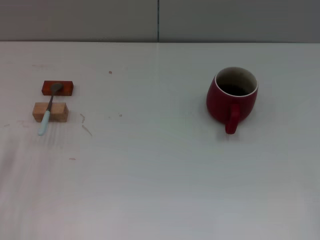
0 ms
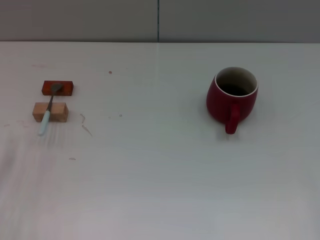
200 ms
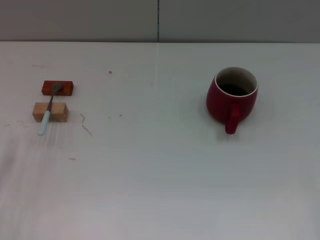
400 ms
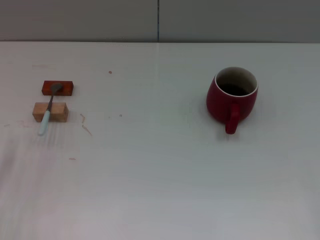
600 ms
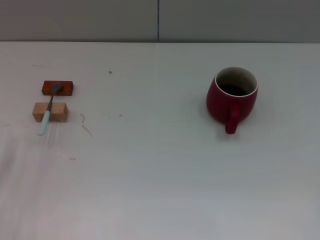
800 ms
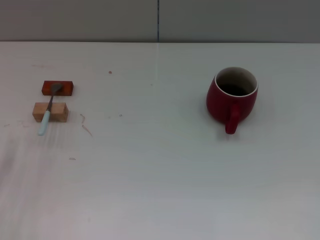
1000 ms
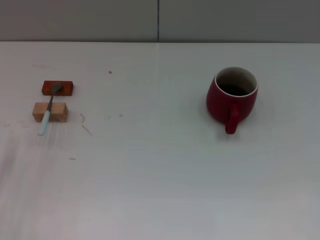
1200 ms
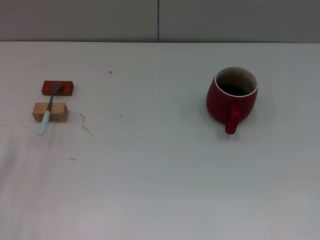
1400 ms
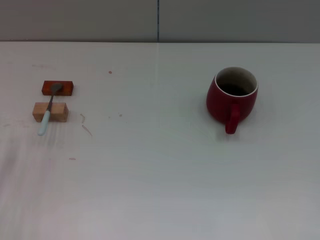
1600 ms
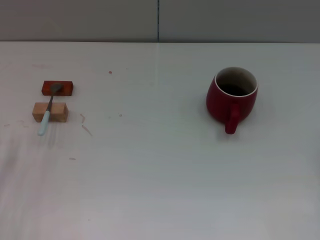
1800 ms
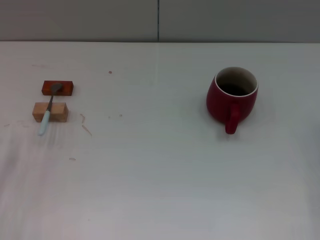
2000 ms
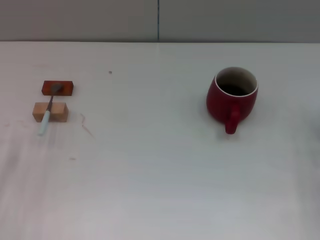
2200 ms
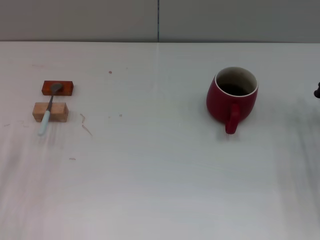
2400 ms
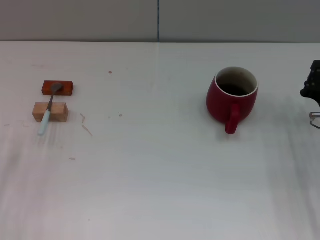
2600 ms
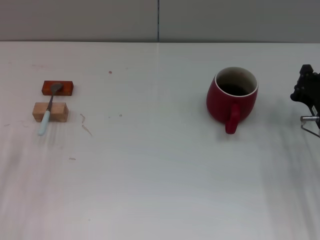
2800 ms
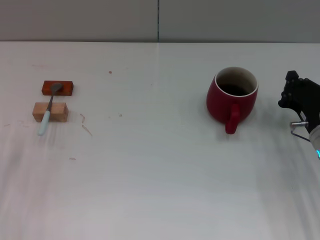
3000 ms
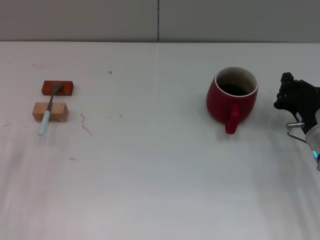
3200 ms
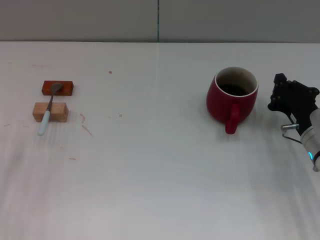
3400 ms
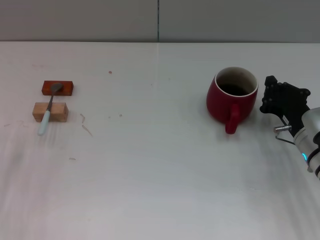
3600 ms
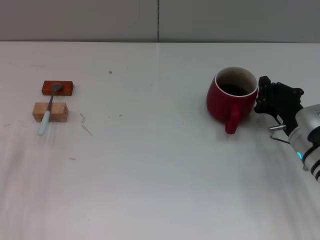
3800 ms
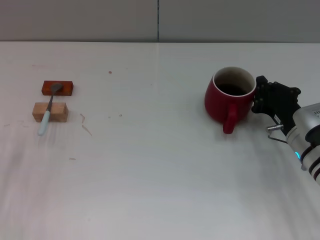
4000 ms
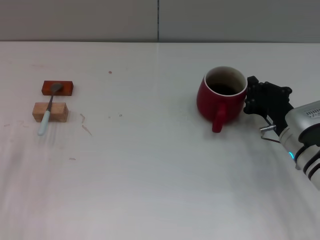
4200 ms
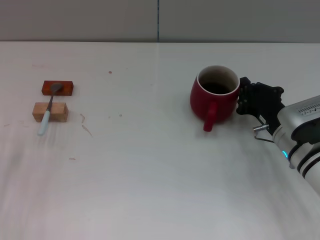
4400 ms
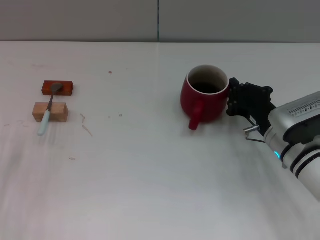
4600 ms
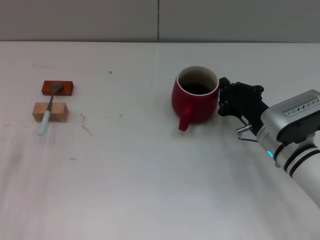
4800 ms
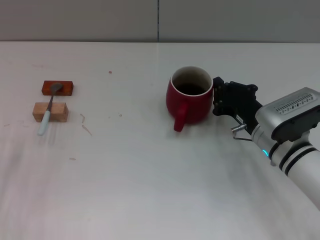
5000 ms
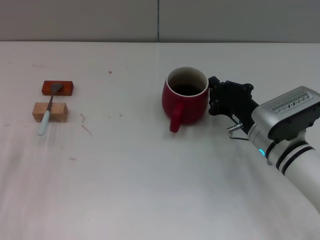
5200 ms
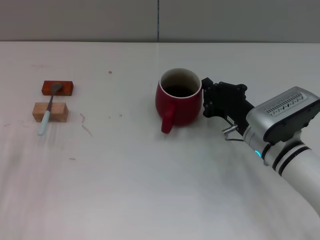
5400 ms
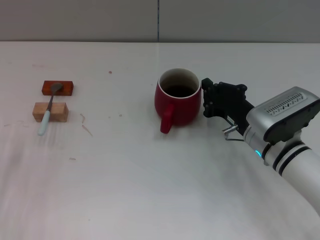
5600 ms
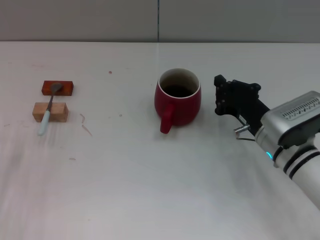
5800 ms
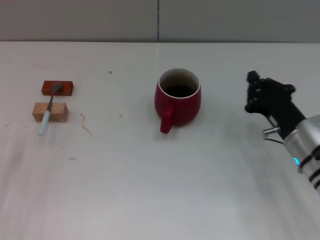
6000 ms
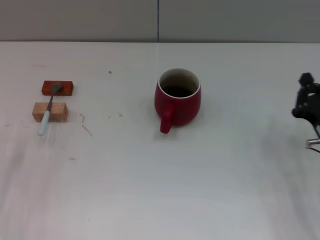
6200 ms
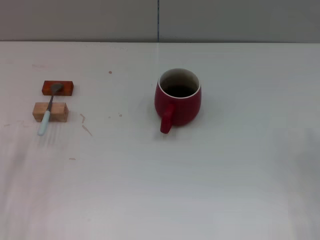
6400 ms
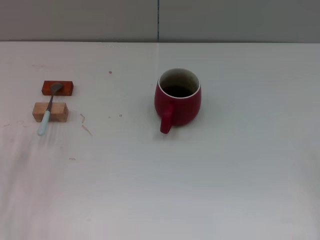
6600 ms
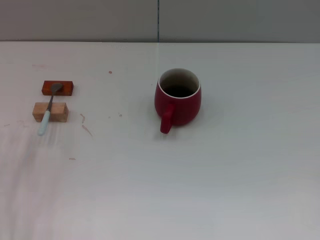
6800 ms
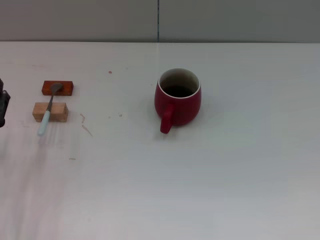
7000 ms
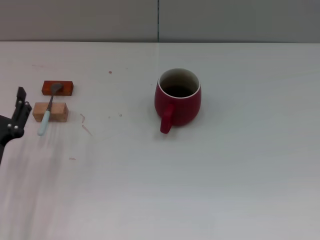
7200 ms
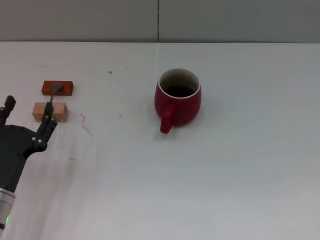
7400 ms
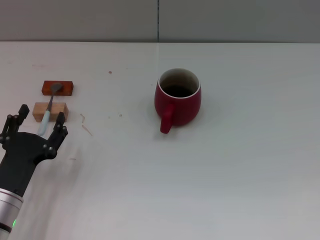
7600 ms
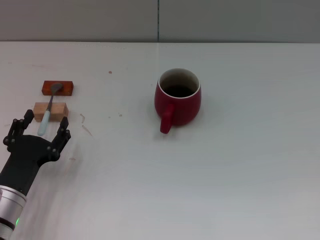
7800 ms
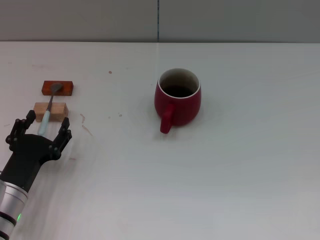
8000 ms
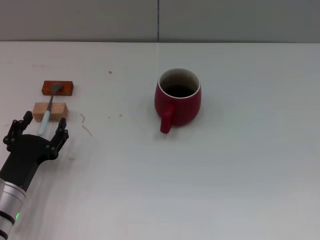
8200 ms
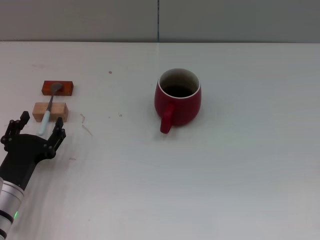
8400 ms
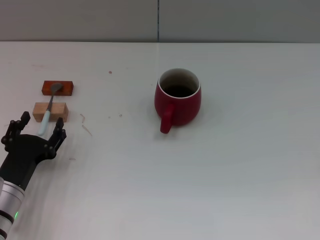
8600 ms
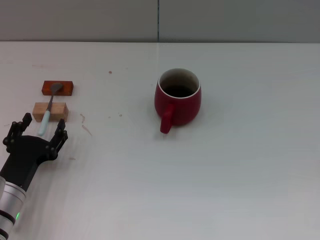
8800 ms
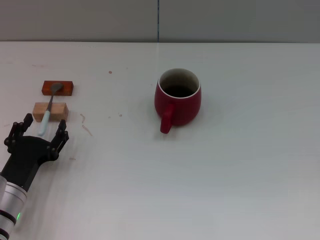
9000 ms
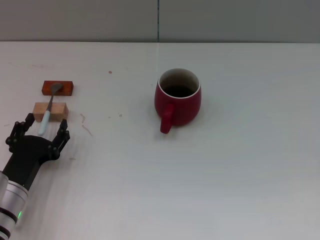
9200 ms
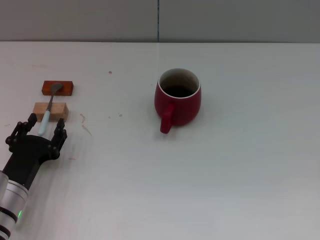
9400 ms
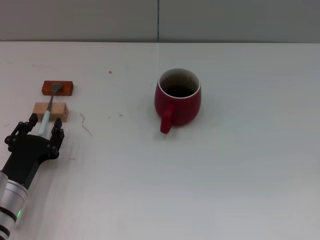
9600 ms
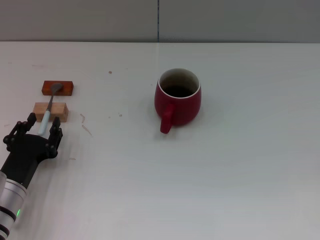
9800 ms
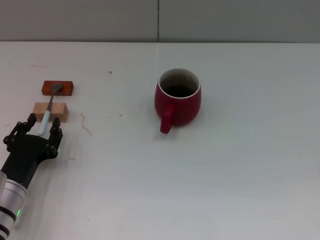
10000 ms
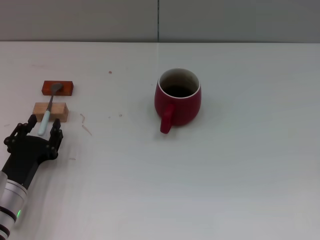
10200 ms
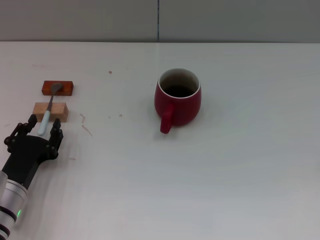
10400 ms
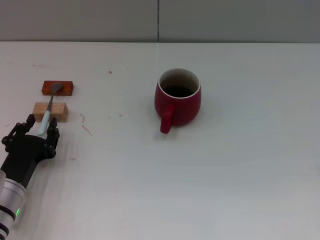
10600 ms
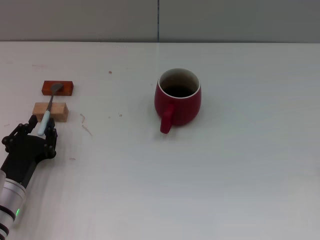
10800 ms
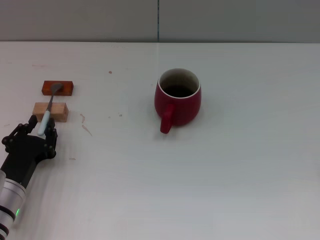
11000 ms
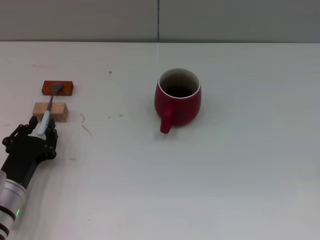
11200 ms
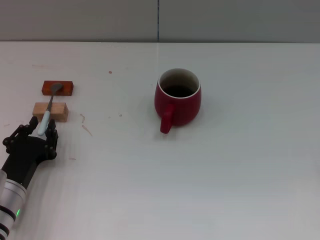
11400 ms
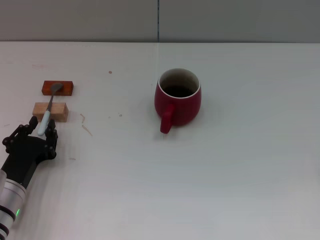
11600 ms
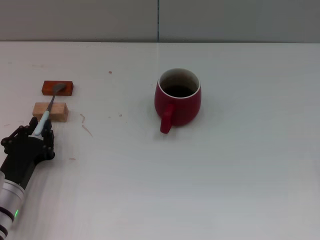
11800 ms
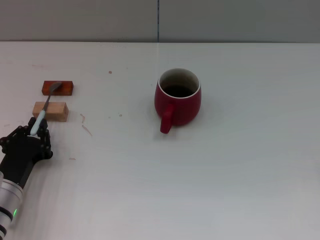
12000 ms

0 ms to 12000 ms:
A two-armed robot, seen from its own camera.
Task of the whole recording: Move the red cup to the center, lift the blue spoon, stir it three times in the cup, and put the spoon into the cup.
Step, 0 ms to 5800 ms: Move the cup with coffee to the center of view with the right gripper.
1600 ms to 3000 ms: The right gripper travels forward and to the left by some 15 cm.
3000 ms to 4400 ms: The grippers stay close to where they were, moving slightly.
4400 ms to 6000 ms: The grippers make only small movements.
6000 ms to 7600 ms: The left gripper moves approximately 5 cm. The right gripper is displaced to the right and backward by about 15 cm, and opens its fingers.
7600 ms to 9000 ms: The grippers make only small movements.
9000 ms to 10400 ms: The left gripper closes its fingers.
10400 ms to 12000 ms: The left gripper closes up.

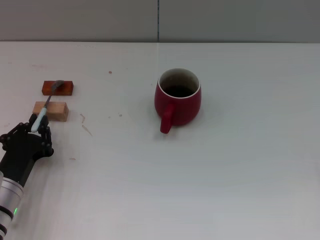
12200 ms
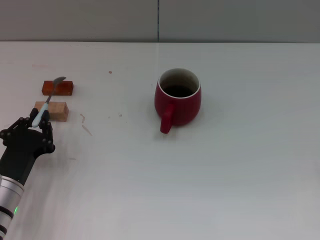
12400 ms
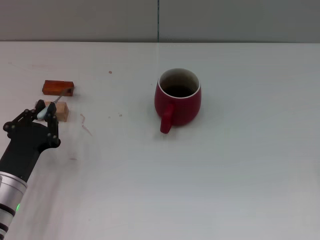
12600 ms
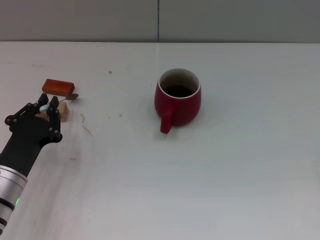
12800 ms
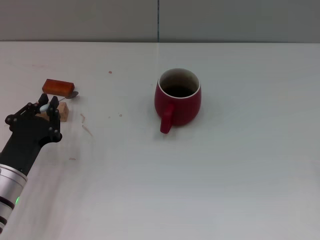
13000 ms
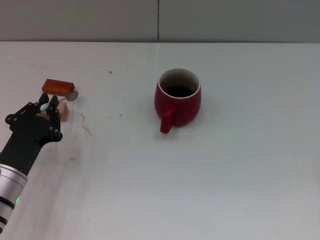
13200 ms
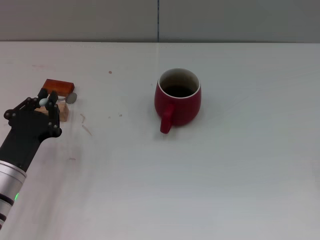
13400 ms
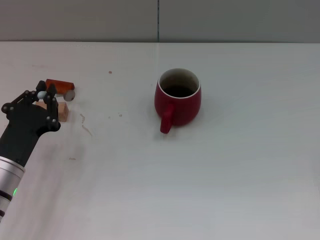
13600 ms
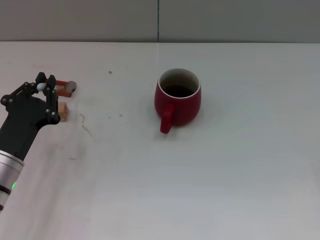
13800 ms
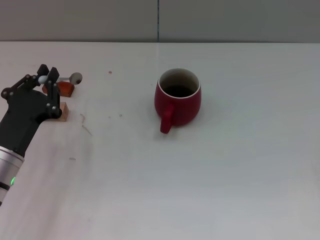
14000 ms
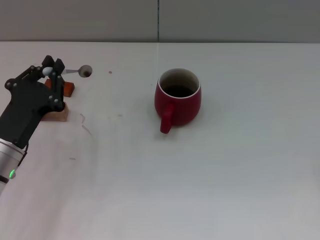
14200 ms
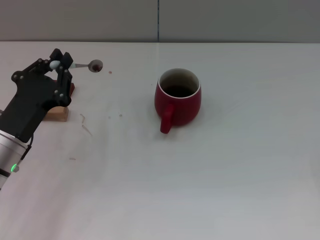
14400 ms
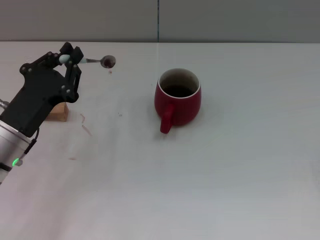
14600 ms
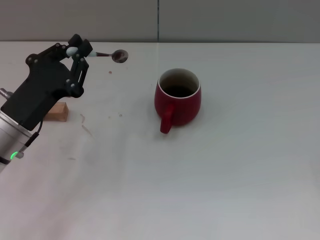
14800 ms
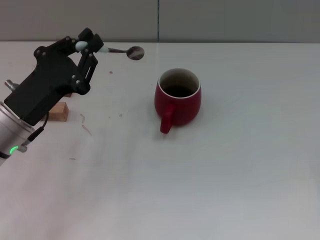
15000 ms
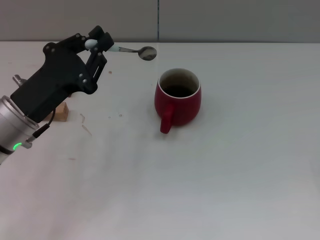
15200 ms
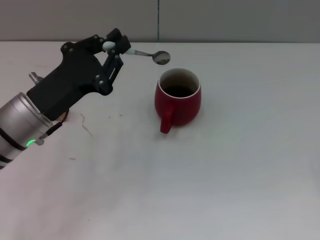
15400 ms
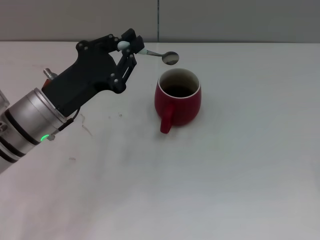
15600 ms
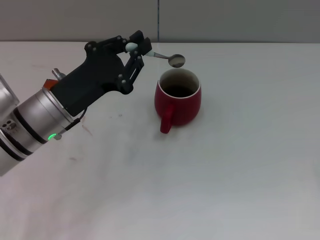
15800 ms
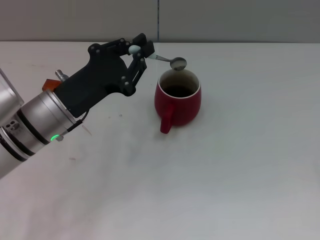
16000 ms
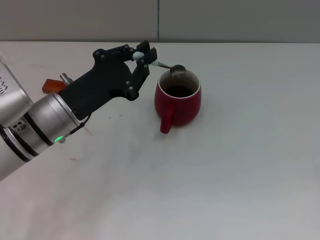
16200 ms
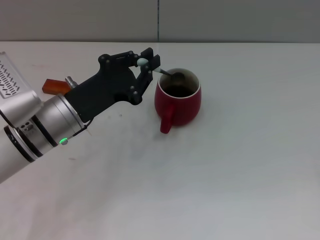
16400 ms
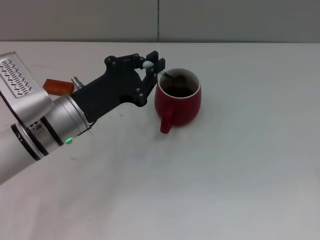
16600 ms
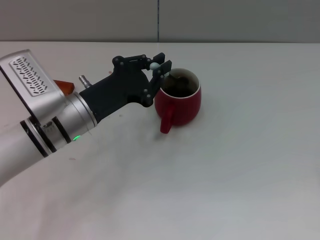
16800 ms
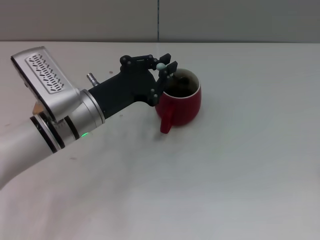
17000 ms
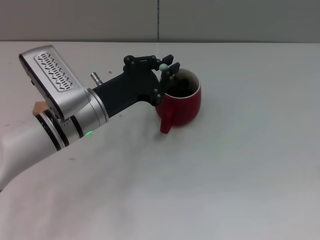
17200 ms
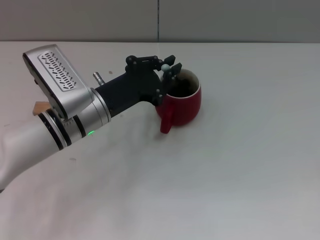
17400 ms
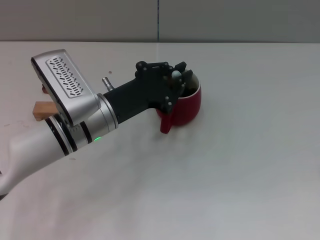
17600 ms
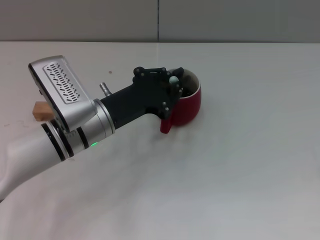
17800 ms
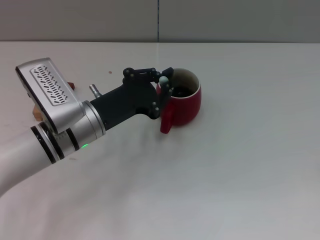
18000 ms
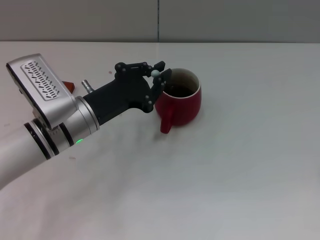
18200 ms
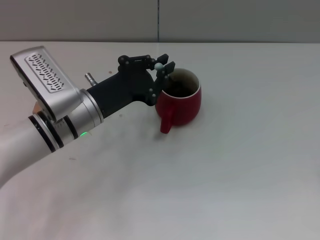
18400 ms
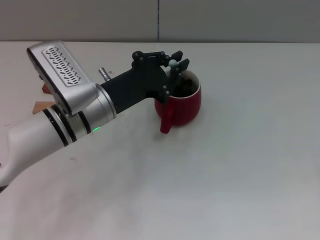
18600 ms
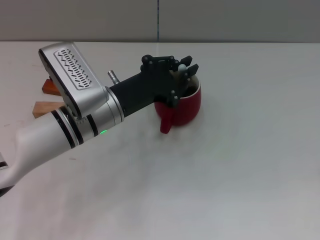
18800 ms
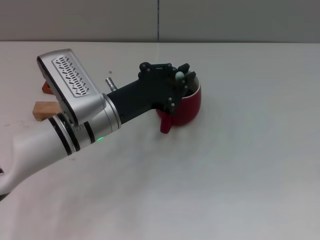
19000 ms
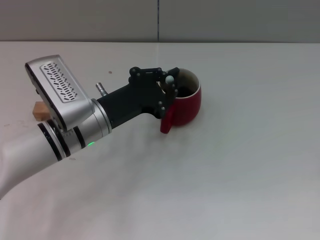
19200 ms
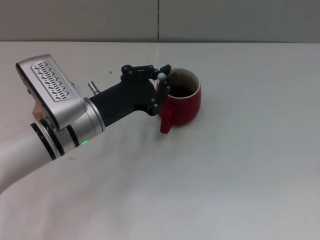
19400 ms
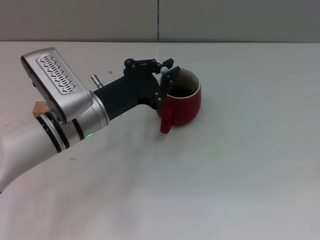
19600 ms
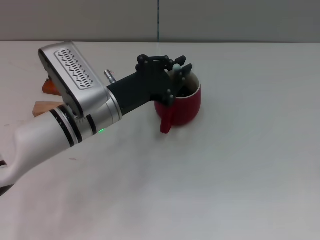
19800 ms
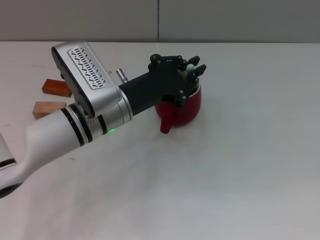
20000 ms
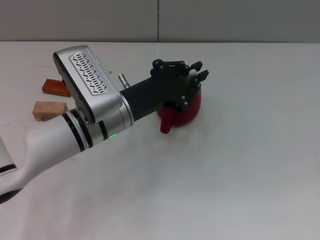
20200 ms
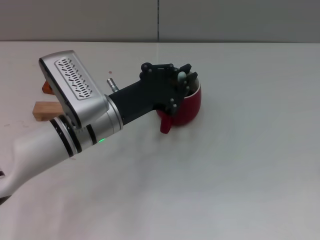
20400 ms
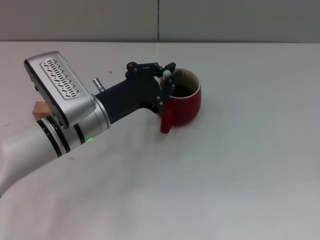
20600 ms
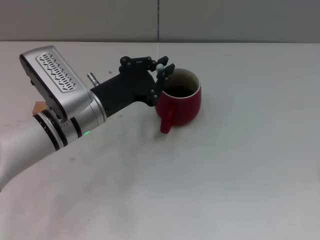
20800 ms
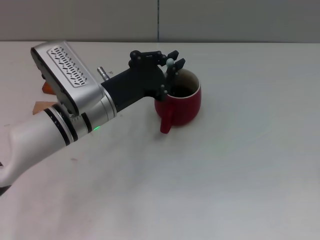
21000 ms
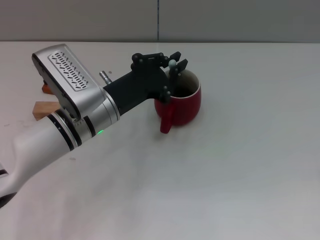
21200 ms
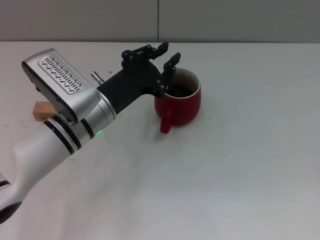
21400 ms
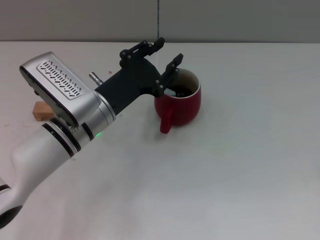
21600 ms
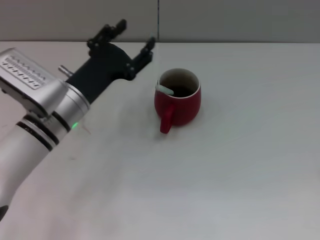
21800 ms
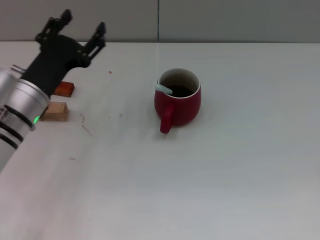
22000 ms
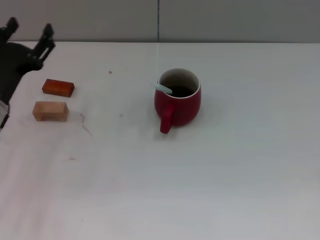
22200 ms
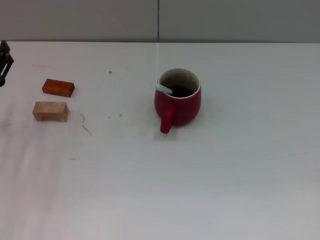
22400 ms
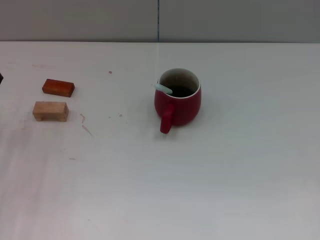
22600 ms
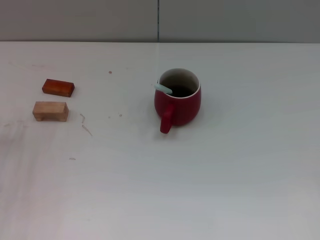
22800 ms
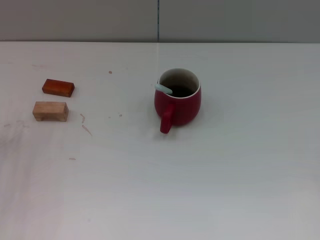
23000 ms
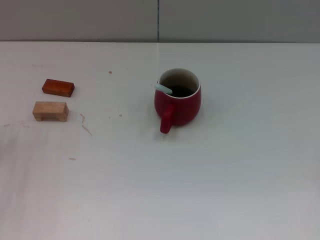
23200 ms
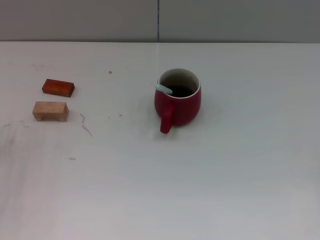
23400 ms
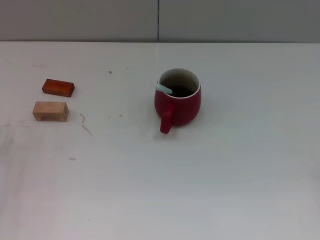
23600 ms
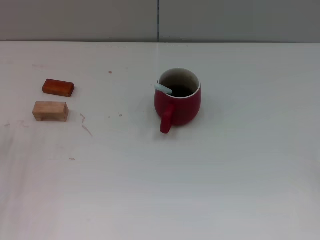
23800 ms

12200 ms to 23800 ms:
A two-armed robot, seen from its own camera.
Task of the whole recording: Move the red cup to the center, lift the blue spoon, stir it three times in the cup, and put the spoon into the cup.
Step, 14200 ms to 21400 ms: Stir the coffee in the cup with the left gripper.
12200 ms to 13600 ms: The grippers stay close to where they were, moving slightly.
13600 ms to 15000 ms: The left gripper travels upward by some 5 cm.
15000 ms to 16600 ms: The left gripper heads to the right, covering approximately 5 cm.
16600 ms to 19400 ms: The grippers make only small movements.
19400 ms to 21000 ms: The grippers make only small movements.
21000 ms to 22400 ms: The left gripper shifts approximately 15 cm to the left, and opens up.
